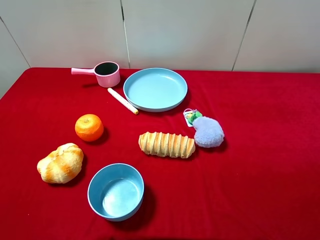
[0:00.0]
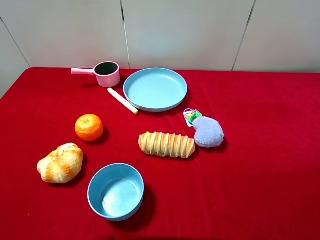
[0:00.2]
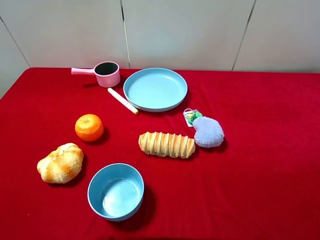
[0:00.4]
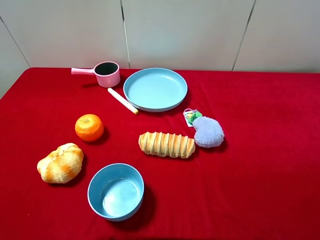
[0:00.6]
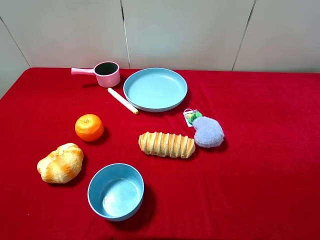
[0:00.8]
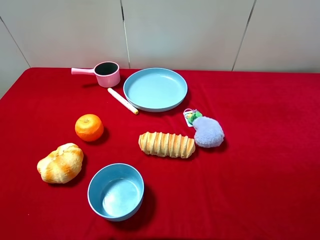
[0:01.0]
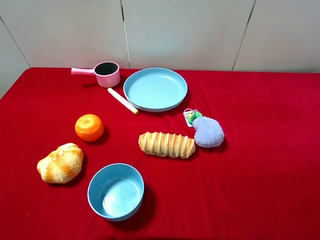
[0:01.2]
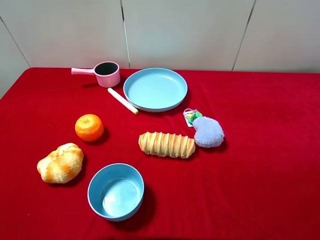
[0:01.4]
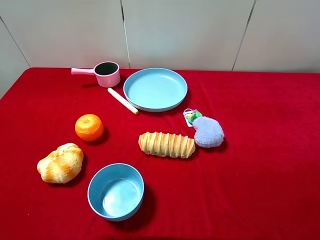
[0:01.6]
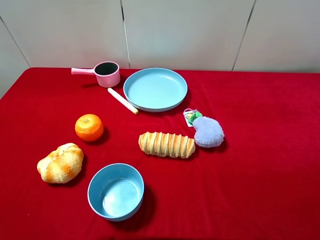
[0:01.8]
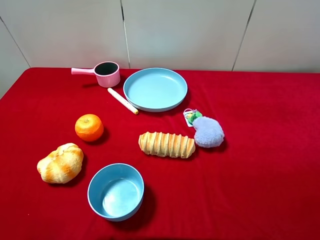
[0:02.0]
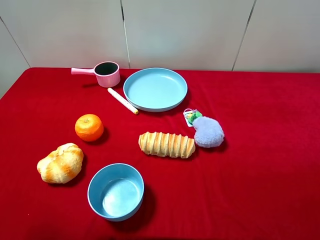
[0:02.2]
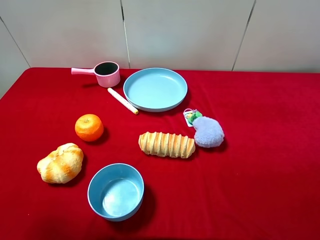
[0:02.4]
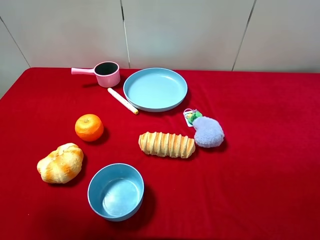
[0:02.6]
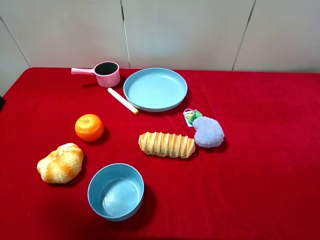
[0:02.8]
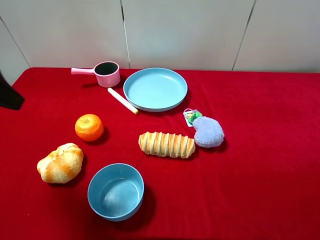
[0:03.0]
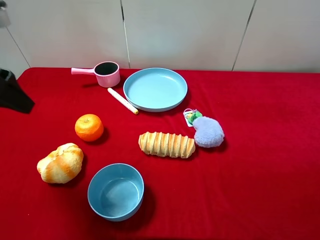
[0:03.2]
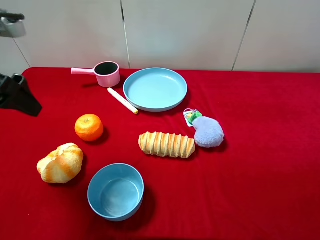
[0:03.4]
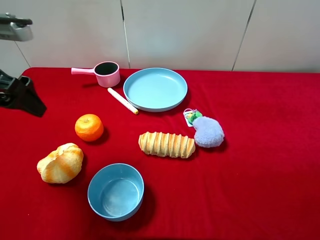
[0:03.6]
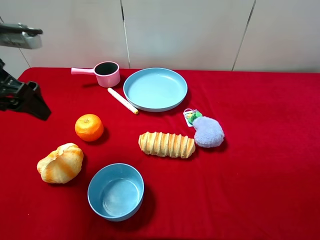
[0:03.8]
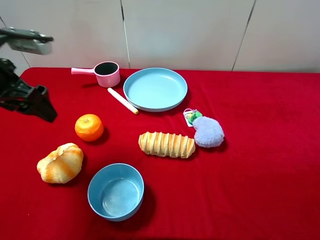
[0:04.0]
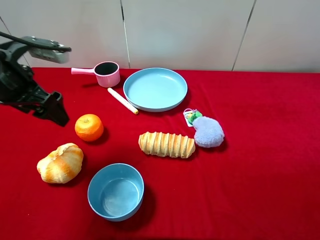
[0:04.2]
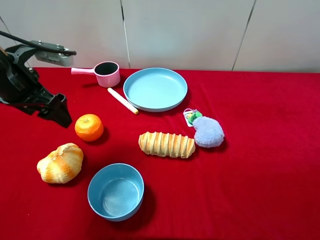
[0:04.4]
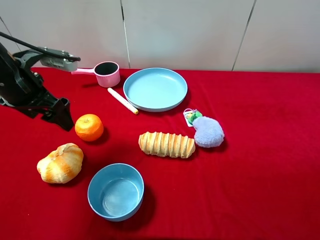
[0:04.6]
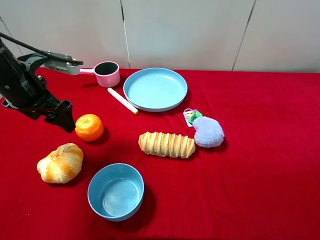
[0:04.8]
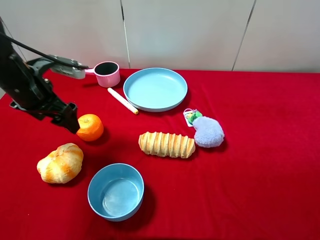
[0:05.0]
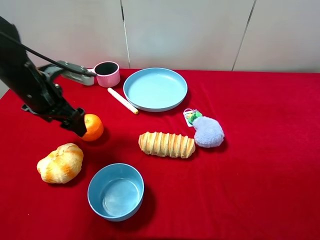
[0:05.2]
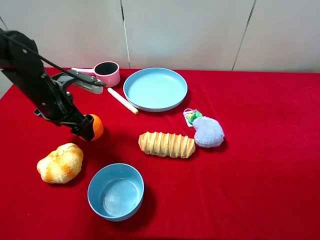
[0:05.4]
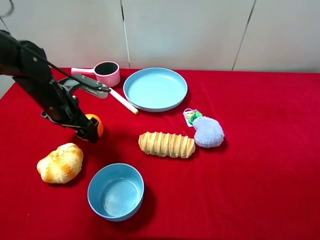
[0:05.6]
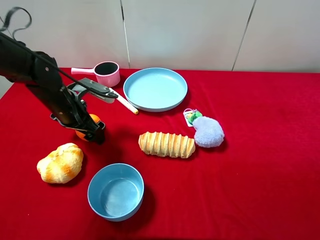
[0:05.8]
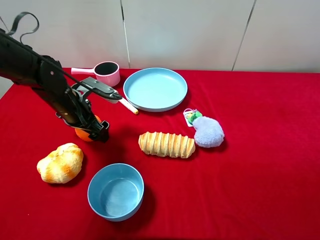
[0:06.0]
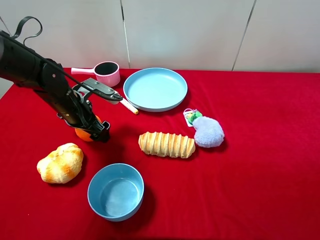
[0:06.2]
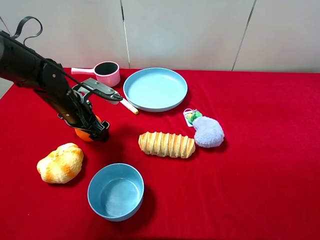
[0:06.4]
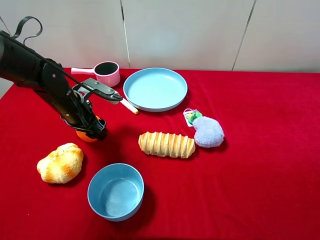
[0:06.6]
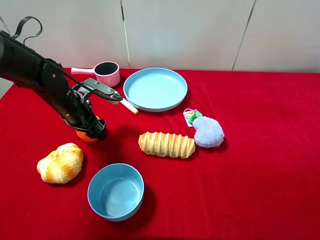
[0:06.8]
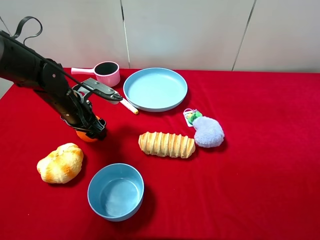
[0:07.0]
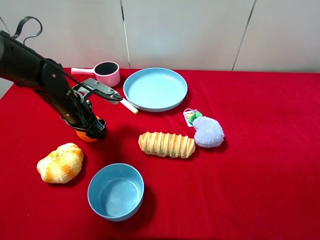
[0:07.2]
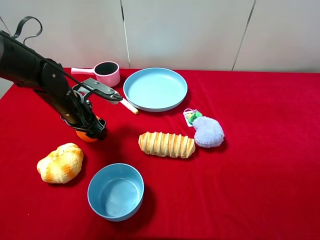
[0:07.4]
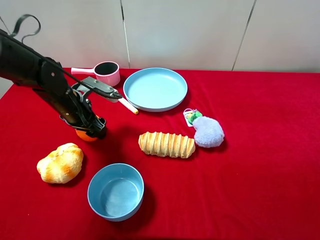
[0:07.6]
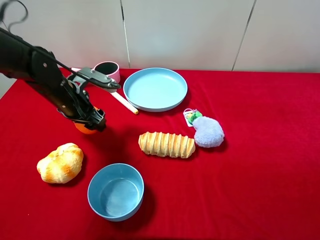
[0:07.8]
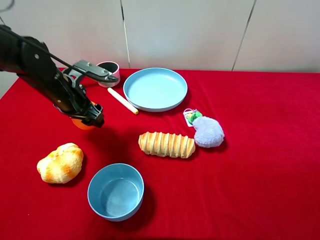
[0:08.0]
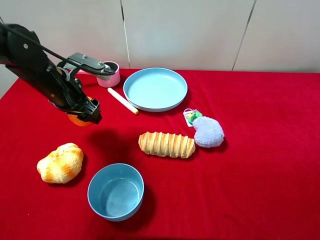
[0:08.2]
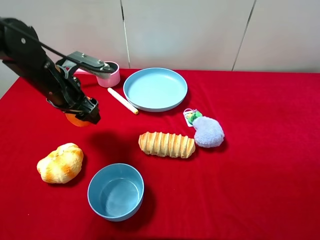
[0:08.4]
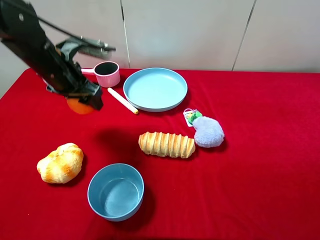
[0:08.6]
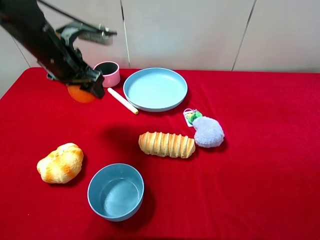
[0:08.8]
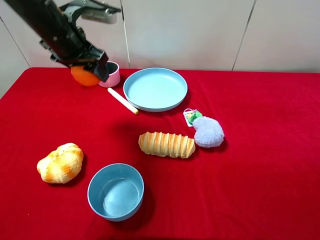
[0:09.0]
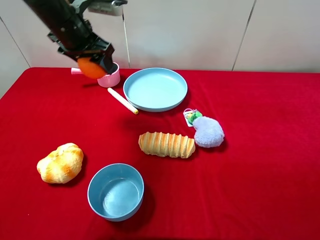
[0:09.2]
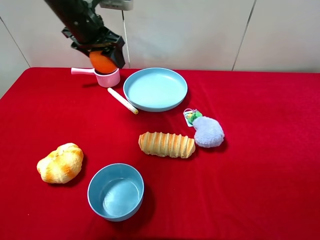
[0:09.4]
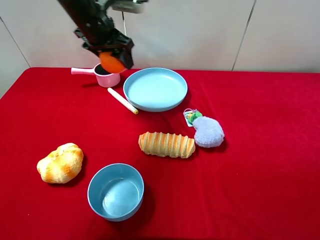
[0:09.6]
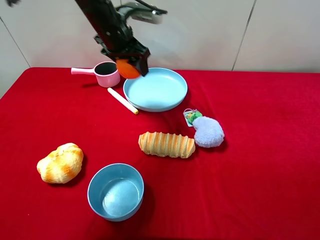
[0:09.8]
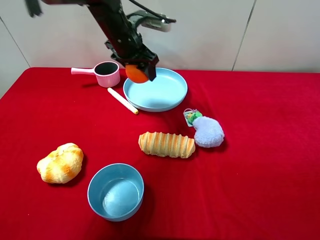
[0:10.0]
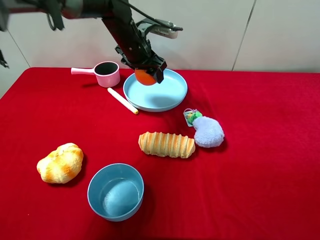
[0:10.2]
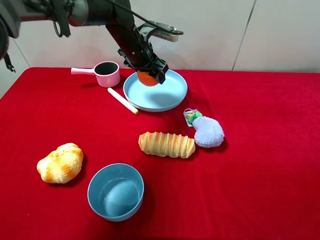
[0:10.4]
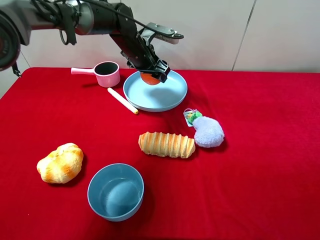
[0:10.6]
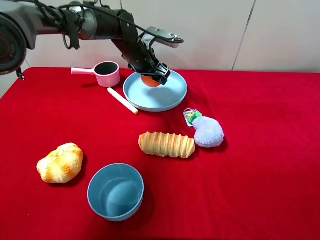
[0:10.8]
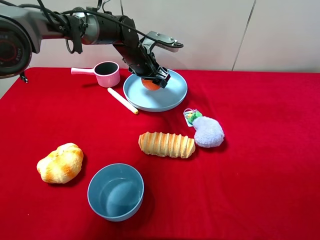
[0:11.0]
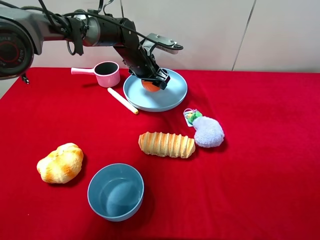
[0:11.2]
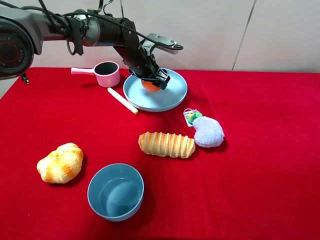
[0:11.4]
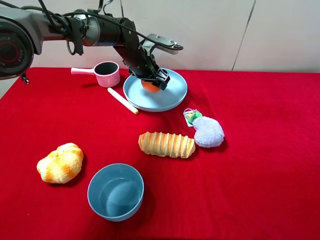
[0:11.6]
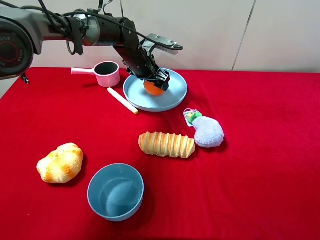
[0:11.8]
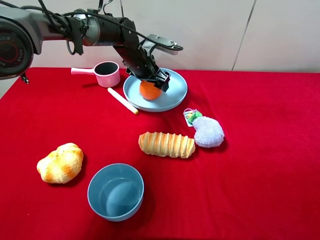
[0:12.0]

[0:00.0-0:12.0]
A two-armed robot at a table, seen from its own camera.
Task of the whole recording: pick up an item with a gripper and place it in a random container on the desktop.
0:01.6 to 0:03.0: The left gripper is displaced forward by some 20 cm.
0:03.0 to 0:04.4: The left gripper shifts approximately 10 cm downward and forward.
0:04.4 to 0:06.0: The left gripper goes approximately 15 cm downward, to the right and forward.
0:06.0 to 0:07.6: The left gripper closes its fingers.
0:07.6 to 0:09.0: The left gripper goes approximately 15 cm upward.
0:09.0 to 0:10.4: The left gripper heads to the right, forward and downward, covering approximately 15 cm.
0:10.4 to 0:12.0: The left gripper opens up.

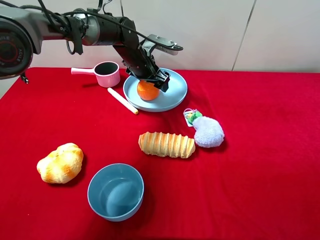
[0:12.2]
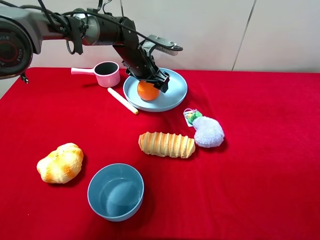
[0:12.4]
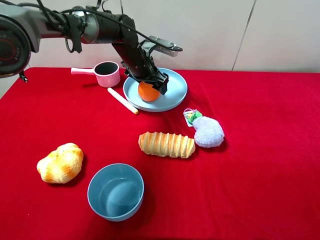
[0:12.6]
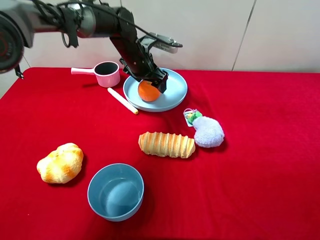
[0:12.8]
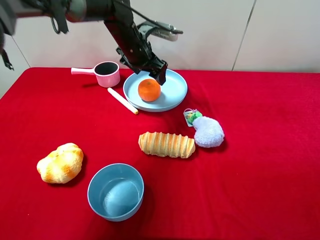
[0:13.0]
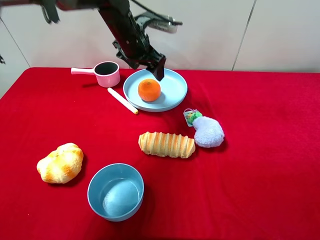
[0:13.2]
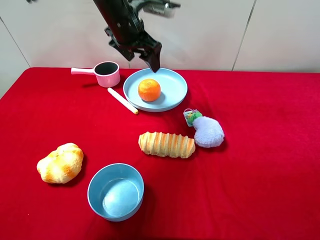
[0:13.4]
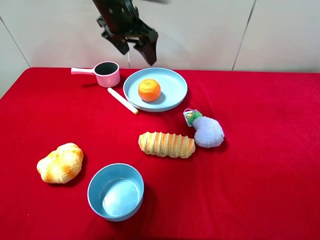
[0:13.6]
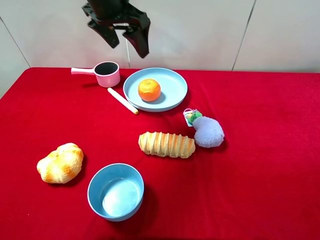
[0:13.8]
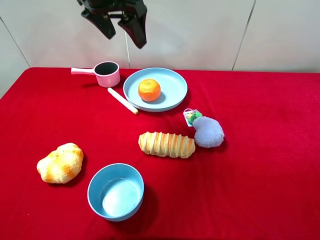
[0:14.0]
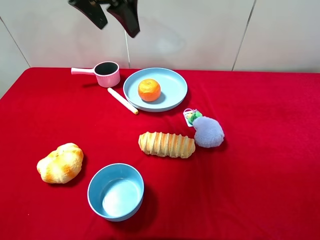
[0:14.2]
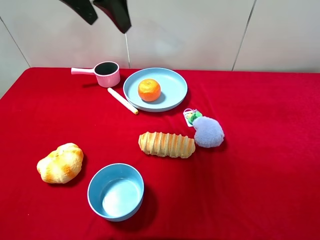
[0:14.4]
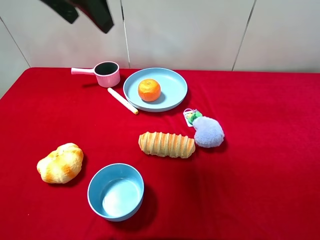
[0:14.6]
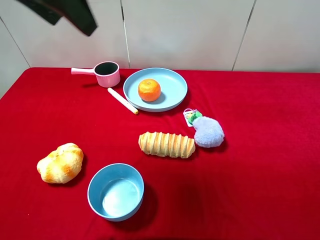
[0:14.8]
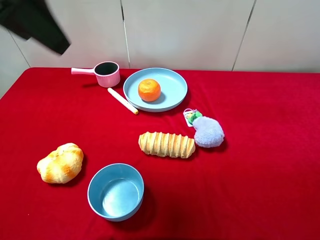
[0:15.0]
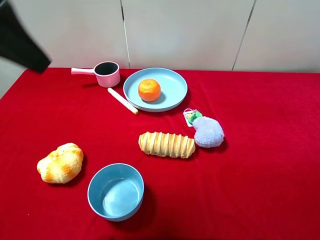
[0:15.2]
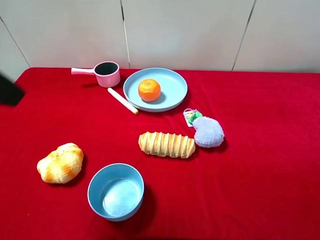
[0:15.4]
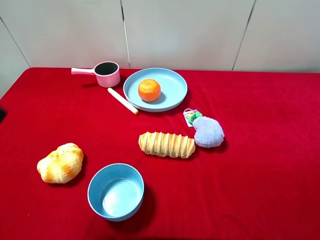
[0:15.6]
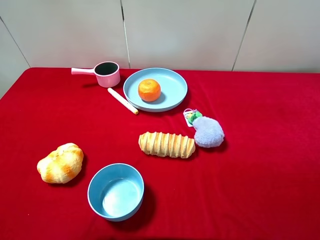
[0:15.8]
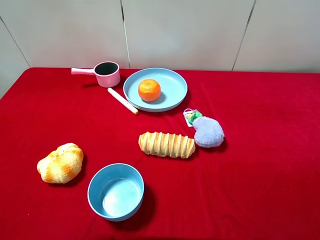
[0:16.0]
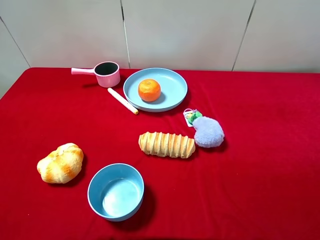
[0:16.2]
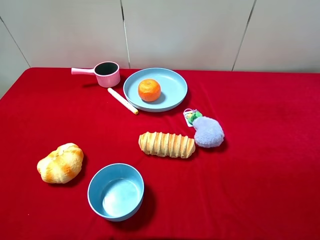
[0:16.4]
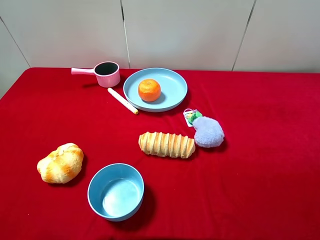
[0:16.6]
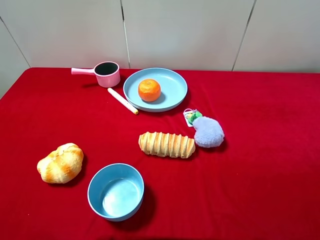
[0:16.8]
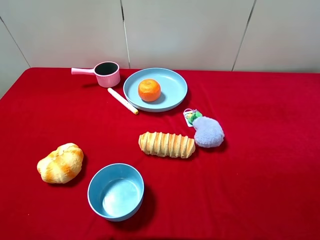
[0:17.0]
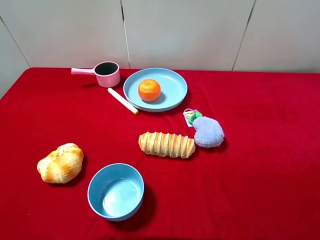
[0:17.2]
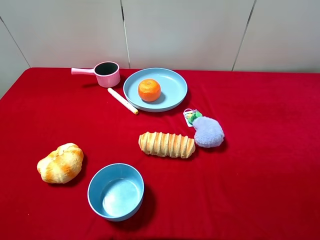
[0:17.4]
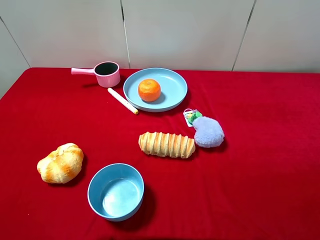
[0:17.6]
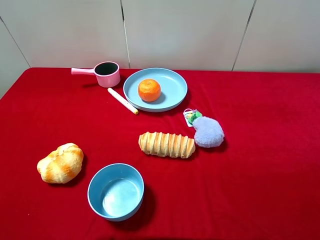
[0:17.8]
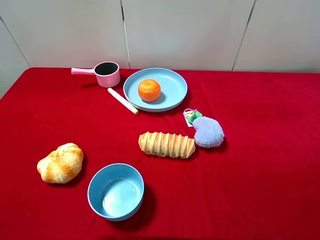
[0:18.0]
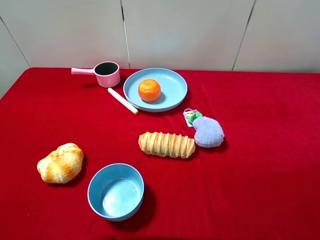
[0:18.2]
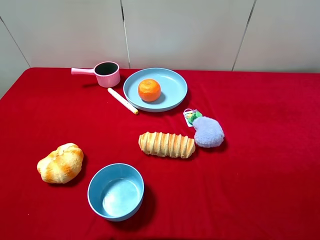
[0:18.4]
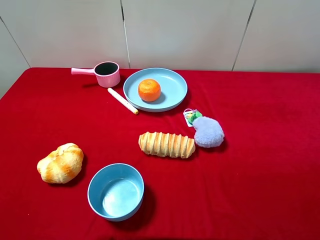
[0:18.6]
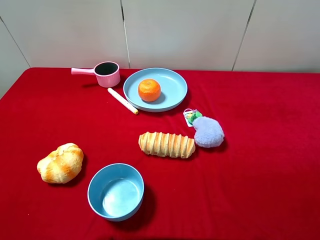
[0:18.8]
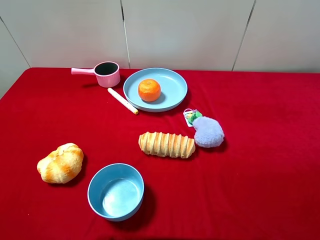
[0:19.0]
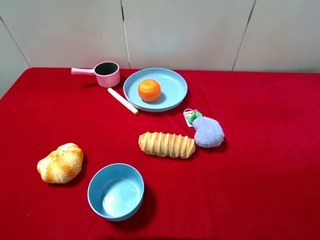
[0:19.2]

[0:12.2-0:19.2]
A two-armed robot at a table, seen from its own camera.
Task of the whole recording: pick up an item with a gripper and place it in a random container on the desktop.
0:12.2 to 0:13.6: The left gripper goes approximately 15 cm upward and backward.
0:13.6 to 0:15.0: The left gripper heads backward, upward and to the left, covering some 25 cm.
0:15.0 to 0:16.4: The left gripper is displaced backward, to the left and downward by about 20 cm, and opens its fingers.
0:17.8 to 0:19.2: Both grippers stay about where they are.
